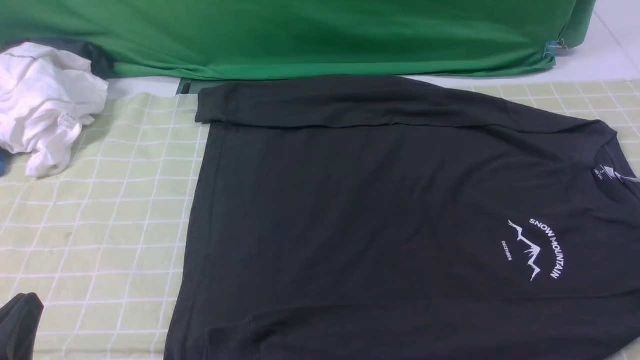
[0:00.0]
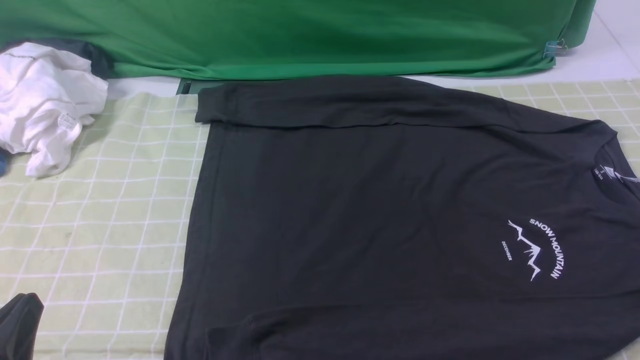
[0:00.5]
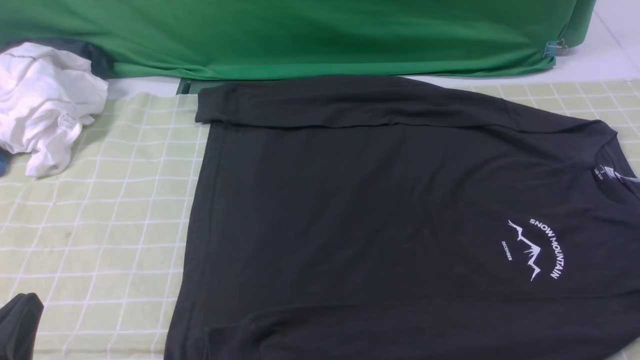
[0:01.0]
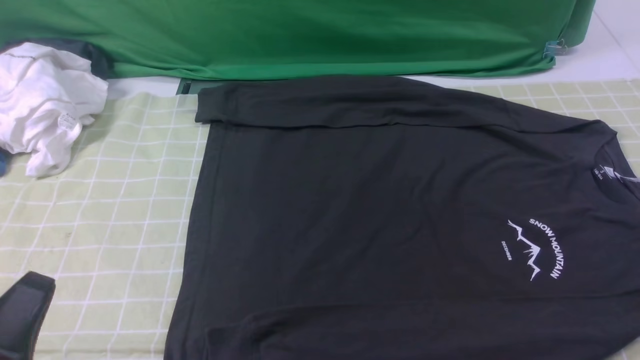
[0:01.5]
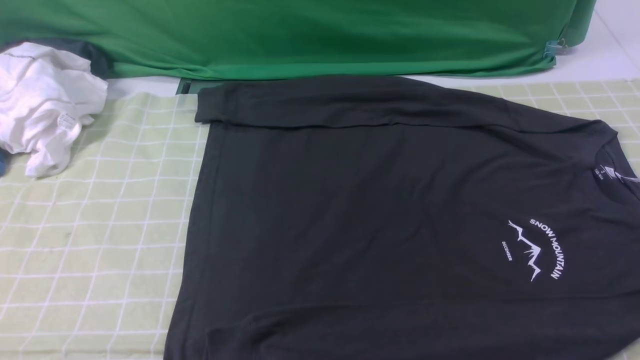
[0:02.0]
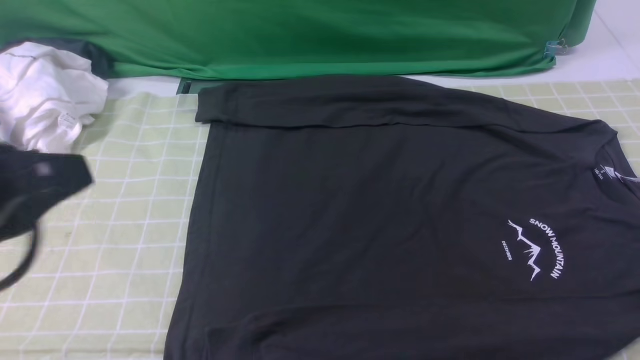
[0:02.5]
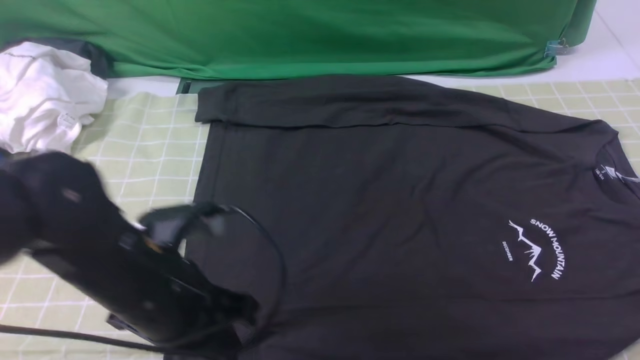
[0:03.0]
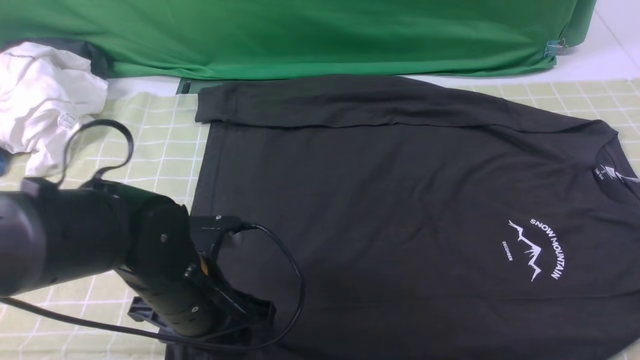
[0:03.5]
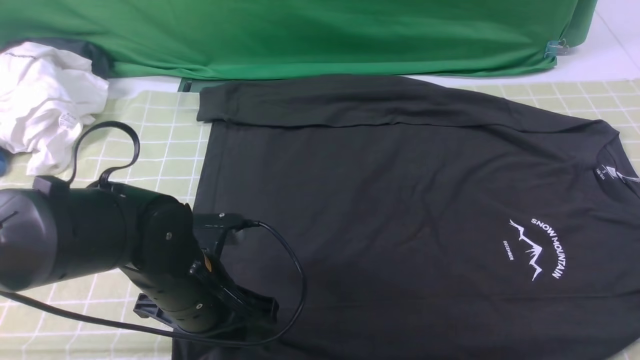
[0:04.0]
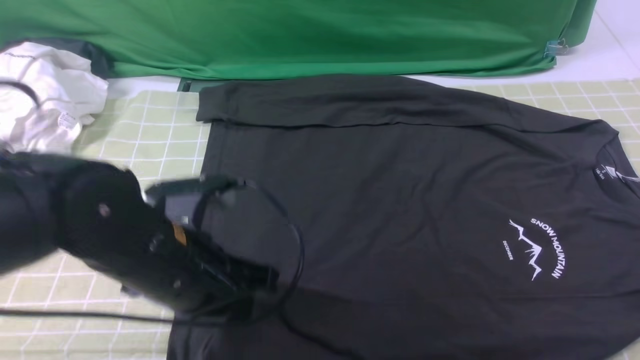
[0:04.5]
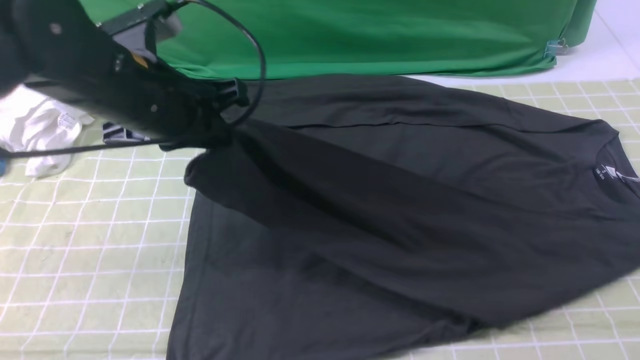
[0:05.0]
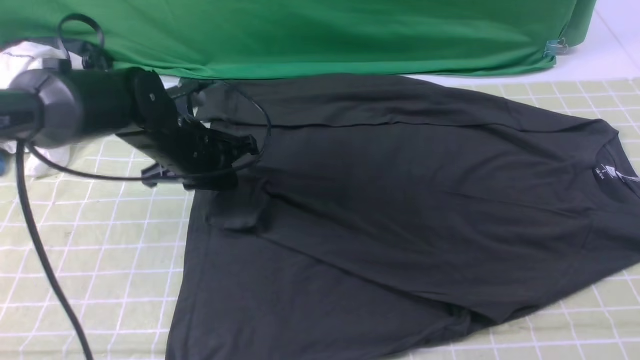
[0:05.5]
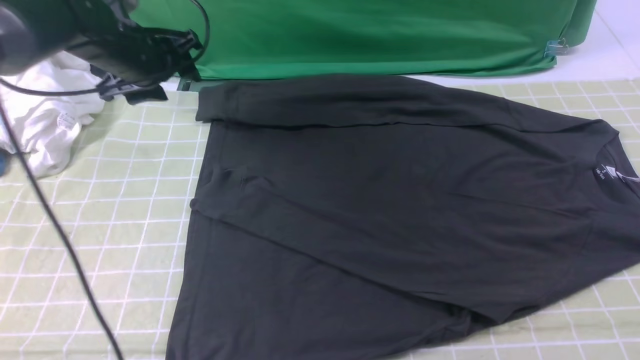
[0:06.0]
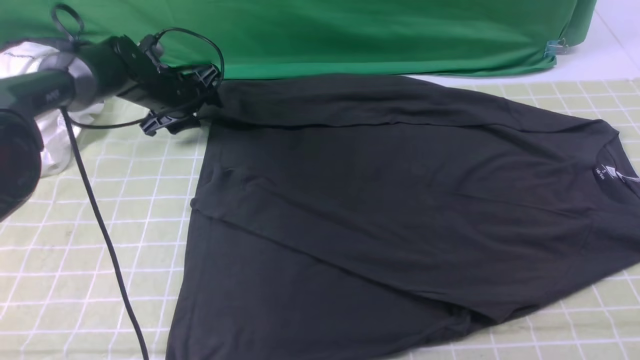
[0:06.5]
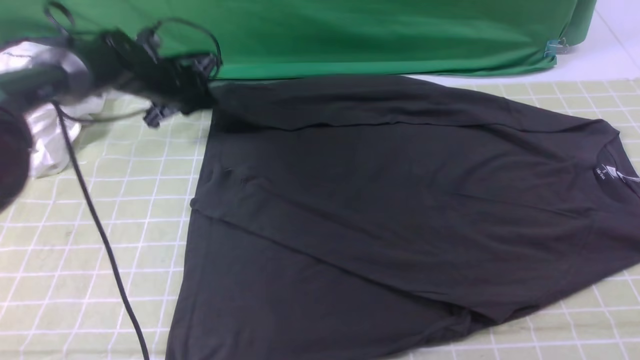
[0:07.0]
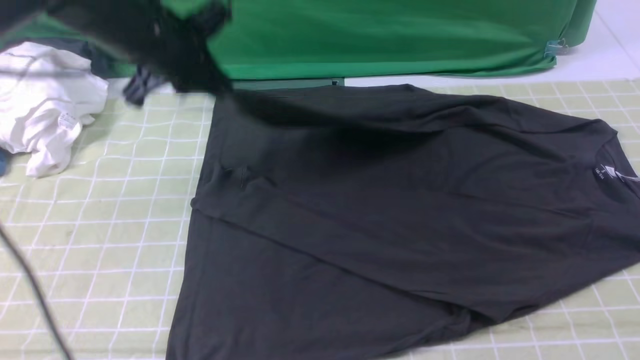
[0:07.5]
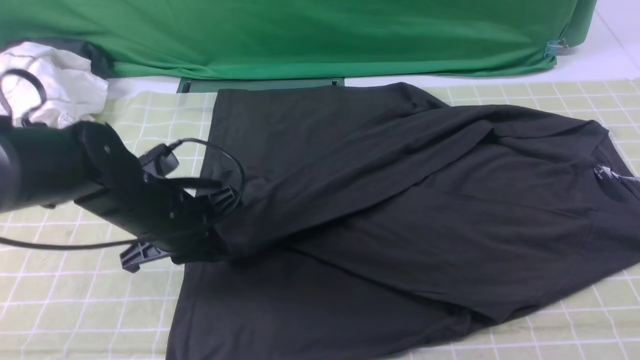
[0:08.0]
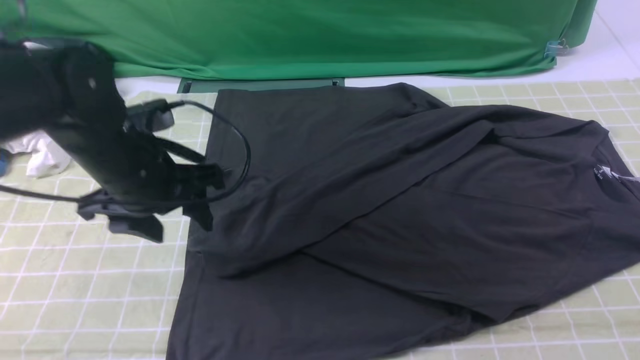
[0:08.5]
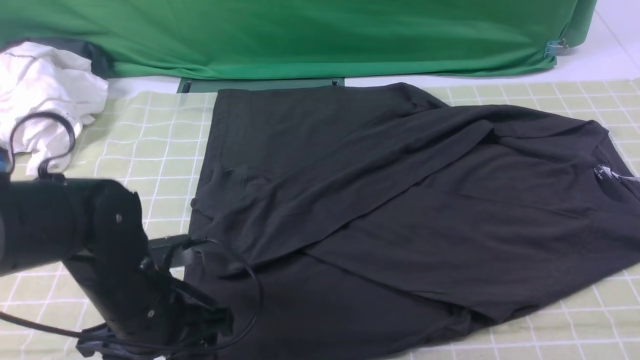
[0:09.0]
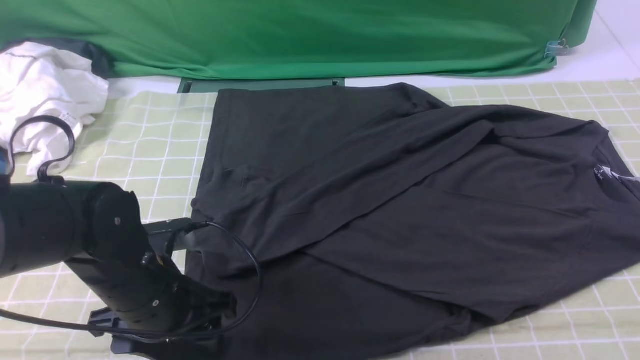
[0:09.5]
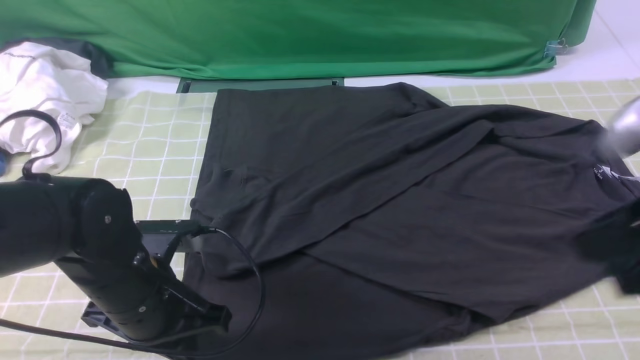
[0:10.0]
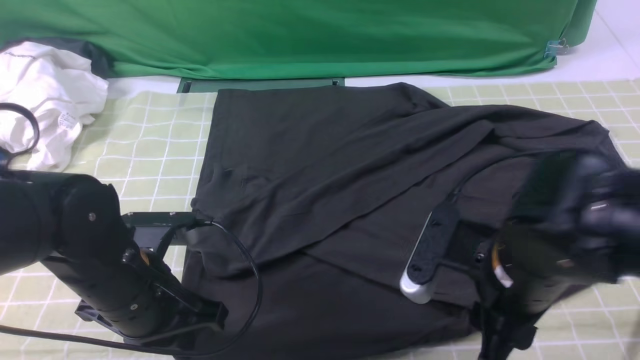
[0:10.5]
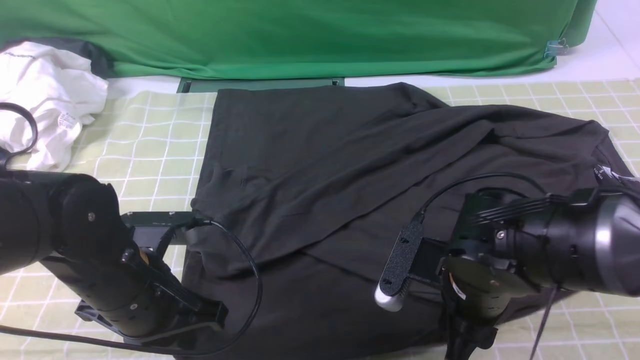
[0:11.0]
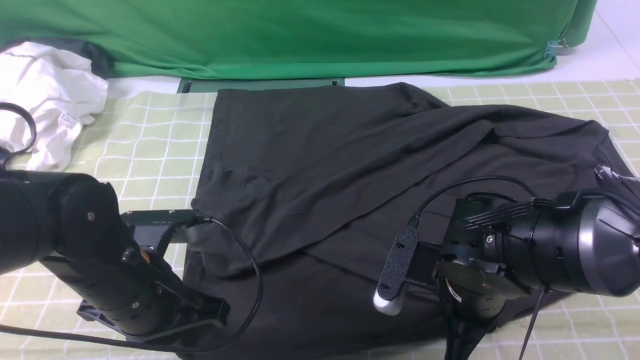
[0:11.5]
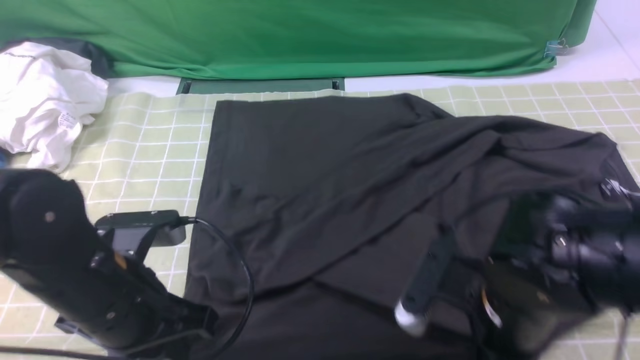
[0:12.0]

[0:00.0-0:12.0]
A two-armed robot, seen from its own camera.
Step, 0:00.0 to 0:03.5: use the left arm to clamp the cuff closest to it.
Step, 0:04.5 to 0:05.5: use the left arm to drag and place the cuff at the centered position on the left edge of the fabric.
Step, 0:06.0 to 0:06.5: use the left arm to clamp the cuff farthest from it.
Step, 0:07.0 to 0:08.0: use the left arm to drag and drop the cuff onto the cuff closest to the left arm.
Step, 0:08.5 to 0:11.5: use both arms simultaneously to clamp the lower edge of the clothing fabric.
0:00.0 to 0:02.0: The left gripper goes approximately 10 cm upward.
0:02.0 to 0:04.0: The right gripper heads upward and forward, covering about 15 cm, and closes up. Meanwhile the left gripper travels forward, to the right and downward by some 25 cm, and opens and closes again.
0:04.0 to 0:06.0: The left gripper shifts approximately 30 cm forward and to the left, and opens.
0:06.0 to 0:08.0: The left gripper goes roughly 15 cm backward, and closes up.
0:08.0 to 0:10.0: The right gripper heads to the left, covering some 10 cm; the left gripper goes roughly 10 cm backward, and opens and closes again.
0:10.0 to 0:12.0: The right gripper moves downward and to the left, some 20 cm, and closes.

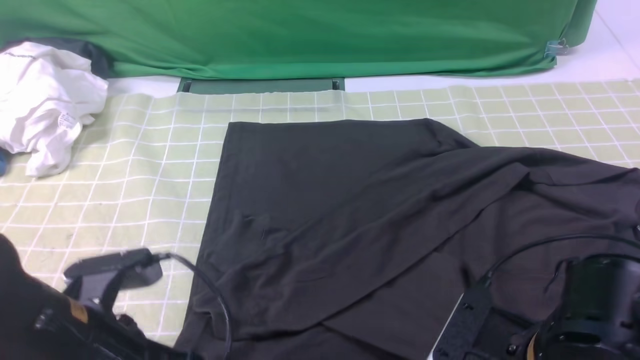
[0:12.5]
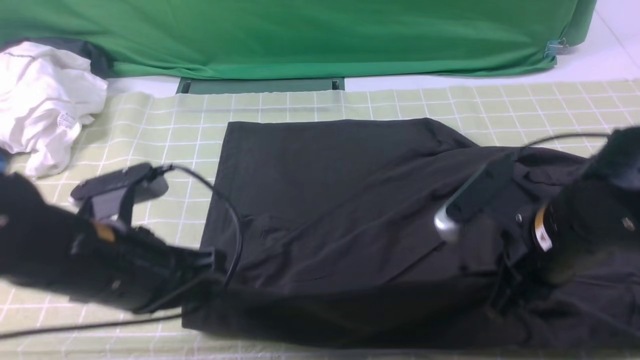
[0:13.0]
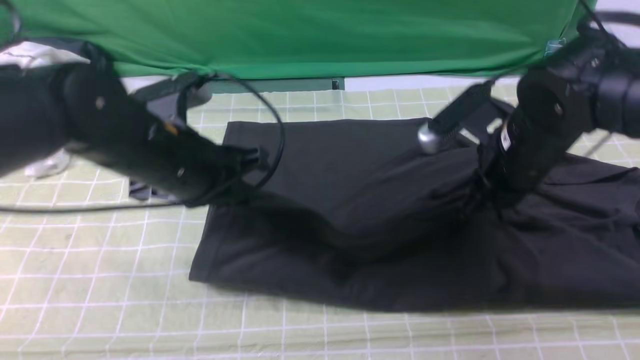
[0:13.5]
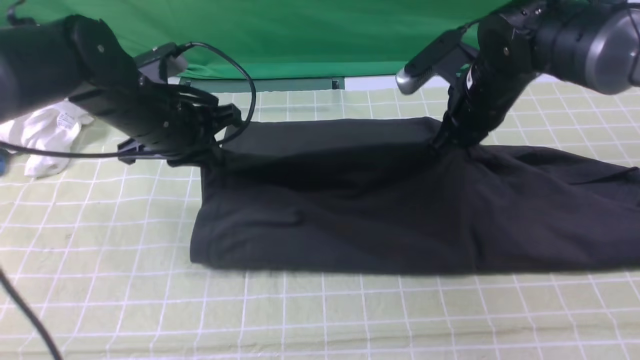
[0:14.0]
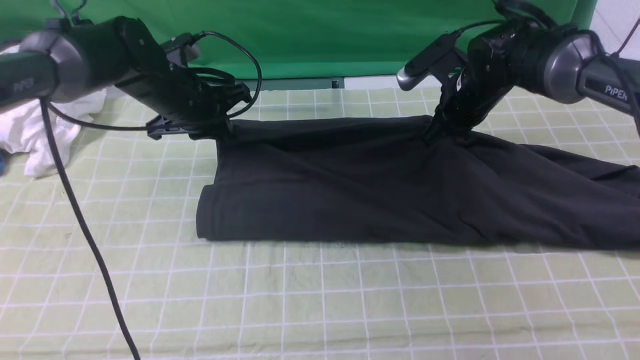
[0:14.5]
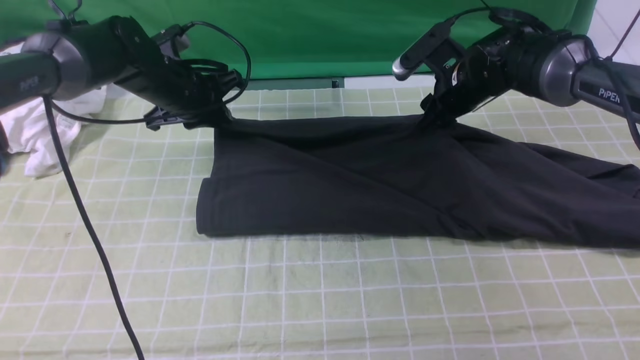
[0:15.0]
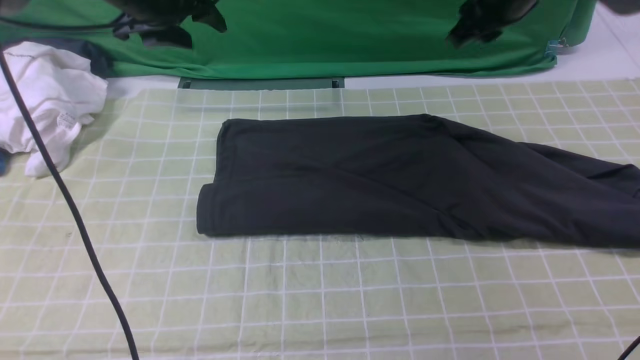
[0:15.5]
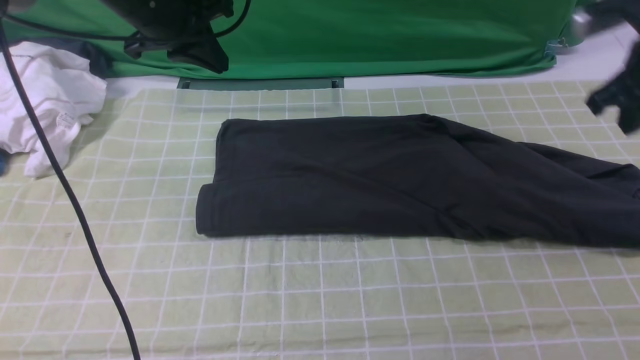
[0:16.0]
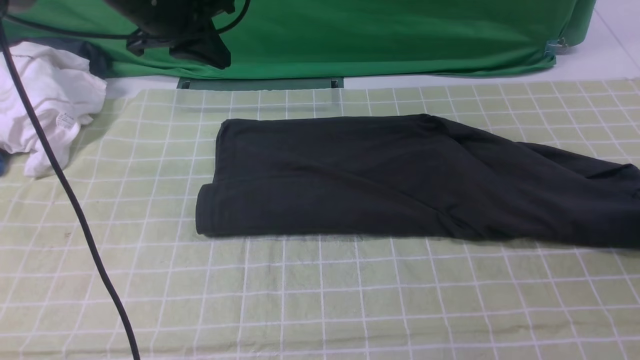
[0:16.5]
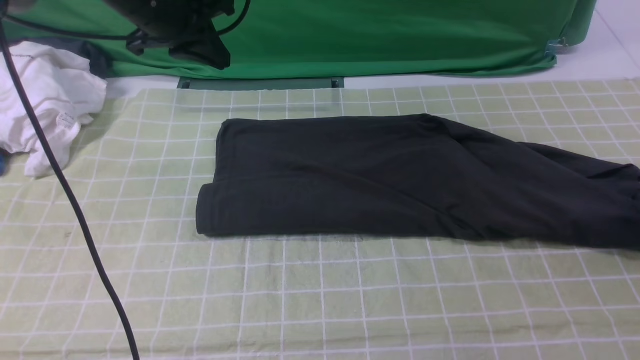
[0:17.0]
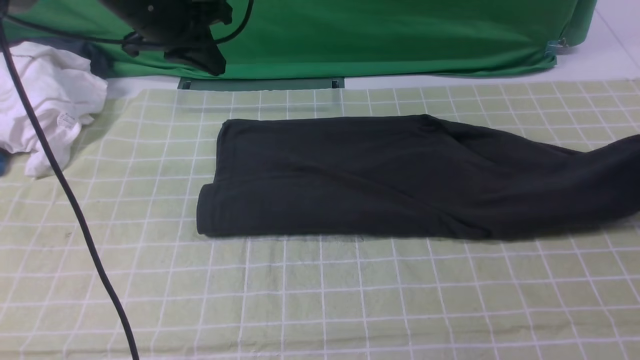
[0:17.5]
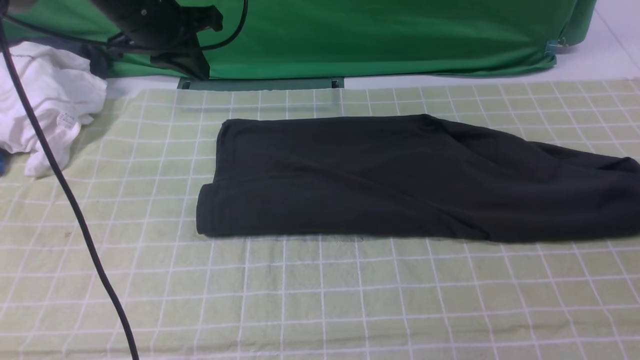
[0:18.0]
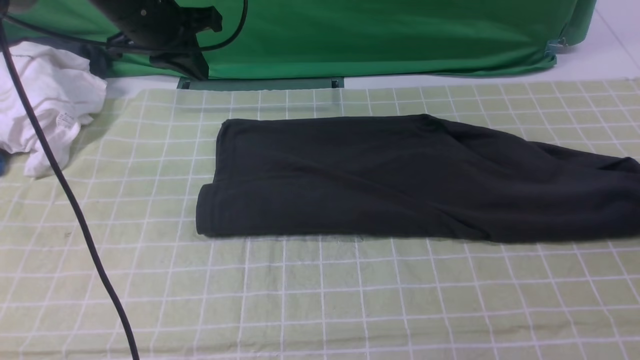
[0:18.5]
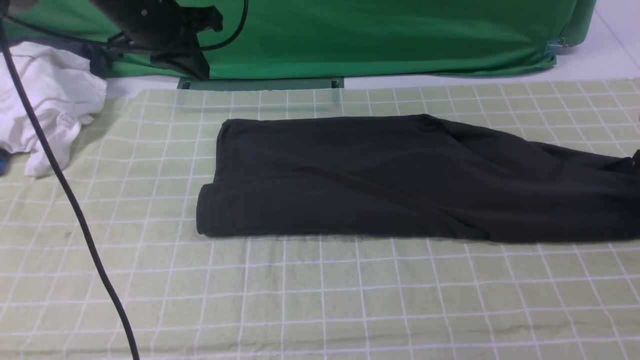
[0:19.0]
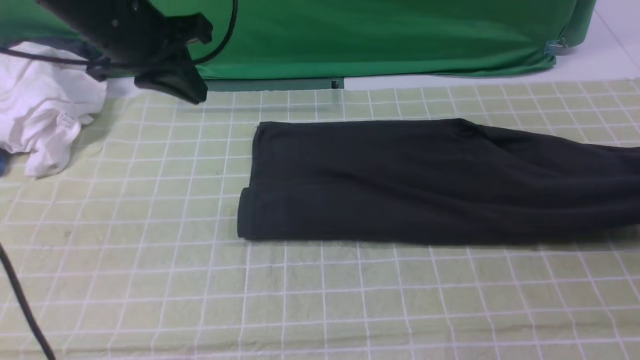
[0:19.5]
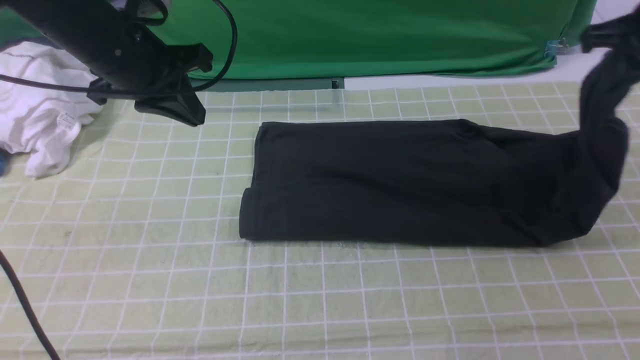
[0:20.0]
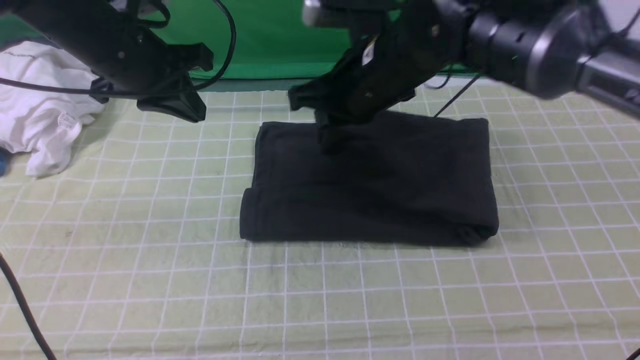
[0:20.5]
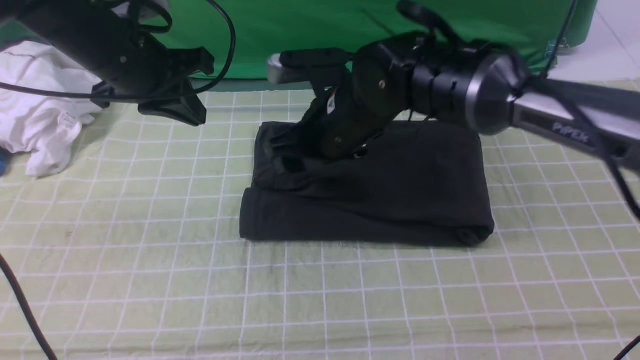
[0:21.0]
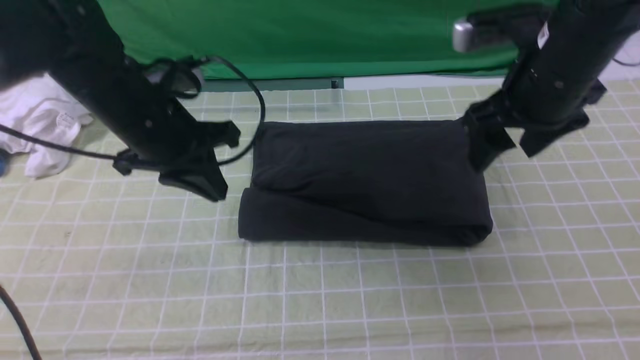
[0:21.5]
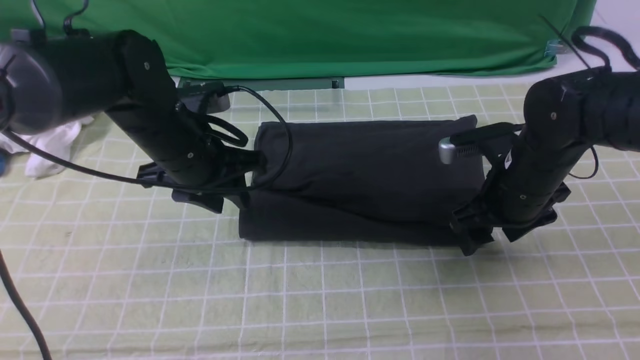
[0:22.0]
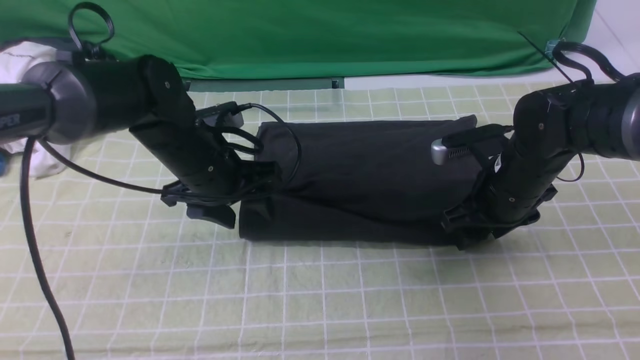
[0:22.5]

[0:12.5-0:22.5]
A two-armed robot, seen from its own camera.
Step, 0:12.5 to 0:15.0: use both arms to drag the lower edge of the fabric forward and fold it over the upper edge.
Step, 0:15.5 to 0:19.0: use the right arm to clamp the right edge of the fabric.
Step, 0:19.5 to 0:21.0: use the right arm to drag the right edge of the fabric to the left and folds it over the left edge.
0:12.5 to 0:14.5: Both grippers travel together forward, about 30 cm.
0:14.5 to 0:16.5: The right gripper shifts some 25 cm to the right, and opens its fingers. The left gripper is displaced upward by some 10 cm, and opens, then closes once more.
0:16.5 to 0:18.5: The right gripper opens up.
0:18.5 to 0:20.5: The left gripper heads backward, covering roughly 10 cm. Meanwhile the right gripper moves to the left, roughly 40 cm, and closes up.
0:20.5 to 0:22.5: The right gripper goes about 20 cm to the right and downward, and opens its fingers, while the left gripper goes about 15 cm downward and to the right, and opens its fingers.
